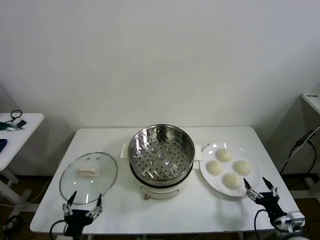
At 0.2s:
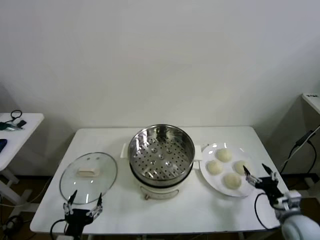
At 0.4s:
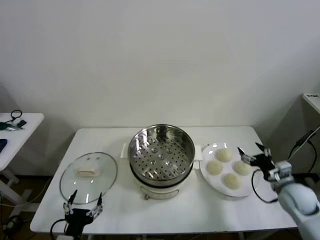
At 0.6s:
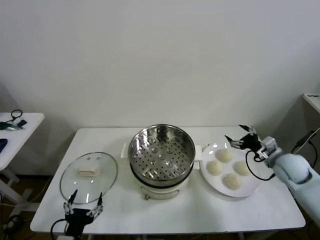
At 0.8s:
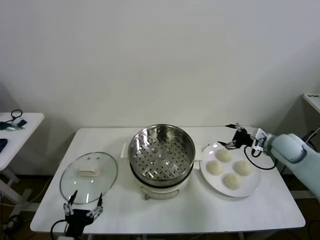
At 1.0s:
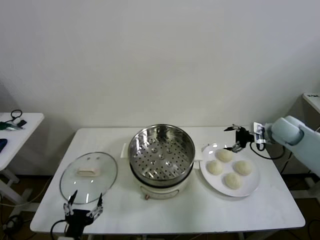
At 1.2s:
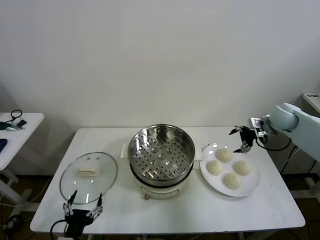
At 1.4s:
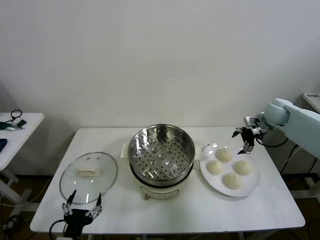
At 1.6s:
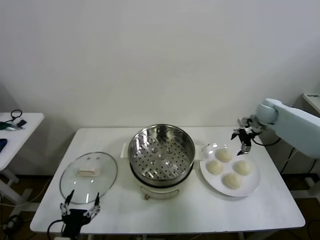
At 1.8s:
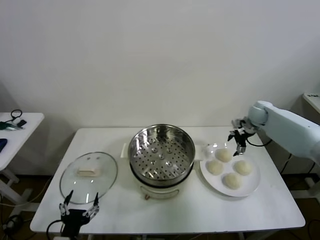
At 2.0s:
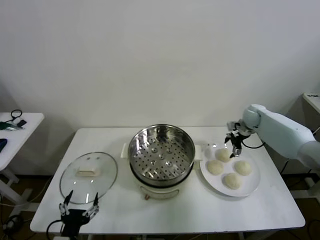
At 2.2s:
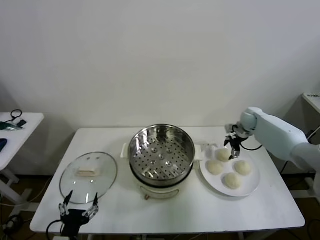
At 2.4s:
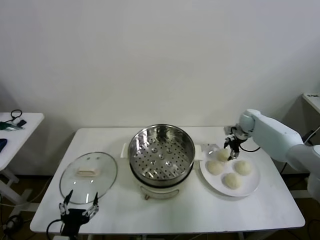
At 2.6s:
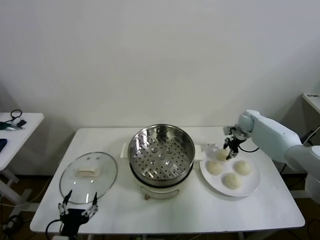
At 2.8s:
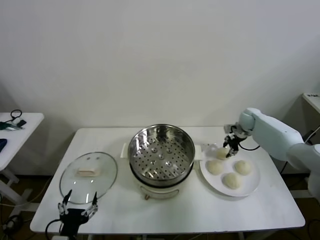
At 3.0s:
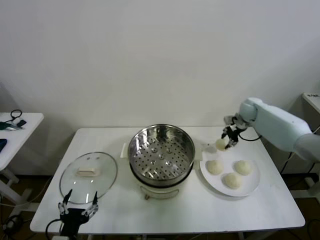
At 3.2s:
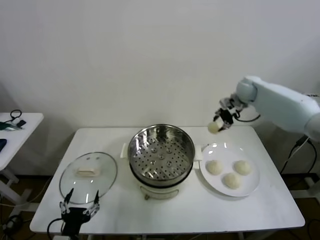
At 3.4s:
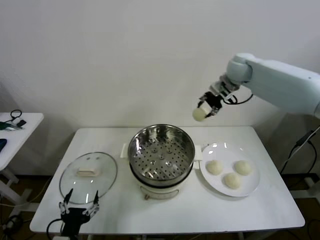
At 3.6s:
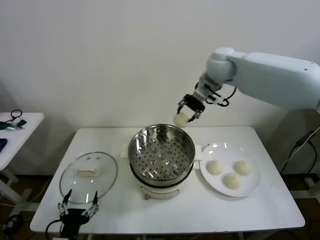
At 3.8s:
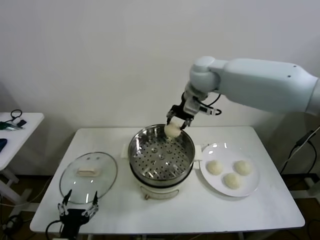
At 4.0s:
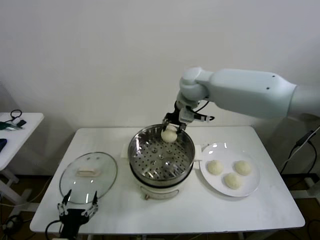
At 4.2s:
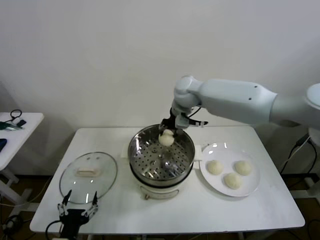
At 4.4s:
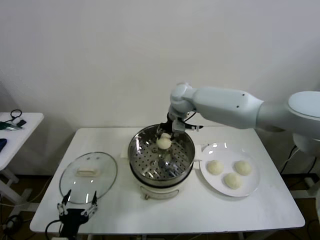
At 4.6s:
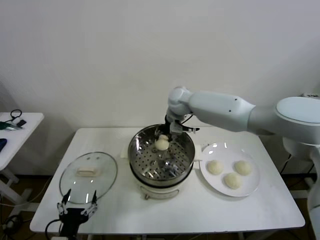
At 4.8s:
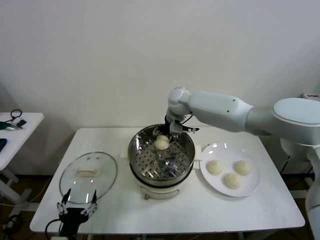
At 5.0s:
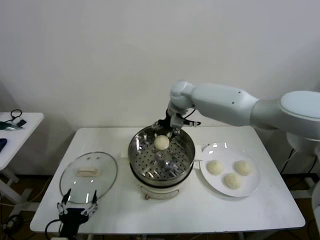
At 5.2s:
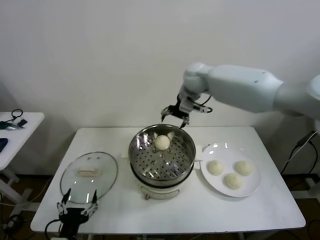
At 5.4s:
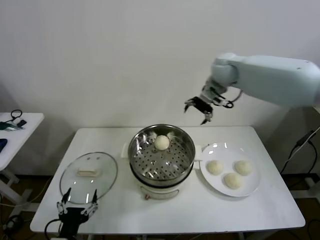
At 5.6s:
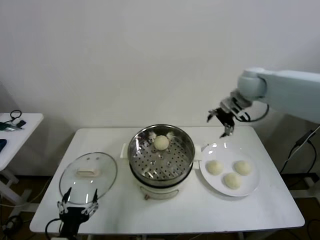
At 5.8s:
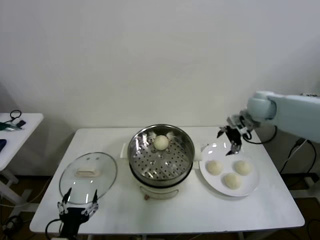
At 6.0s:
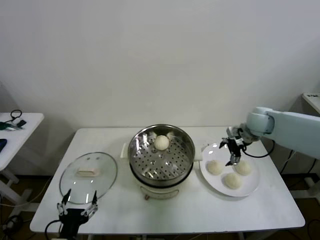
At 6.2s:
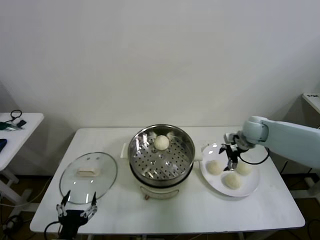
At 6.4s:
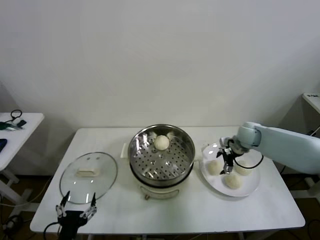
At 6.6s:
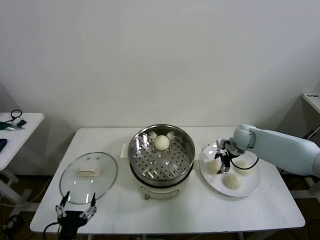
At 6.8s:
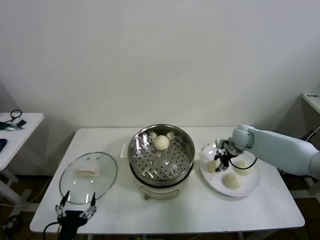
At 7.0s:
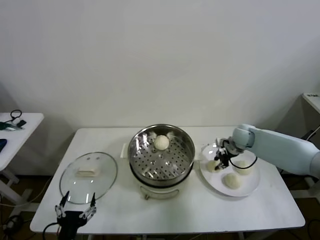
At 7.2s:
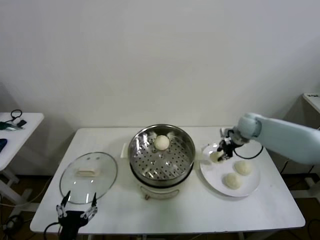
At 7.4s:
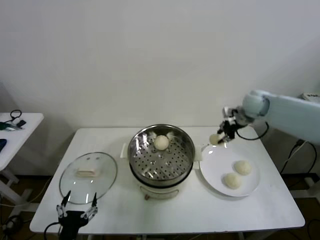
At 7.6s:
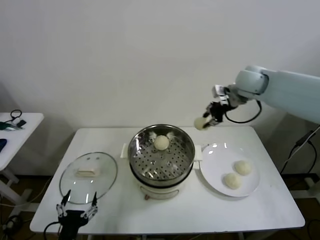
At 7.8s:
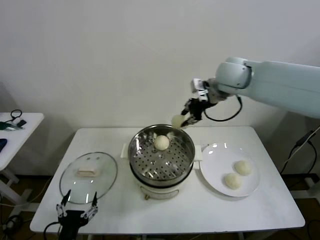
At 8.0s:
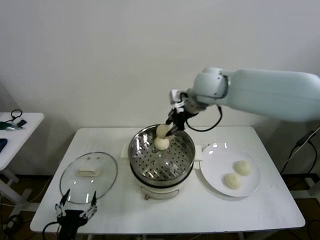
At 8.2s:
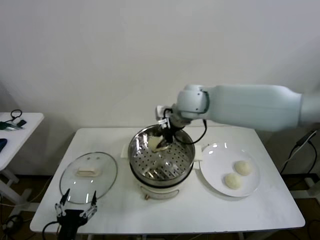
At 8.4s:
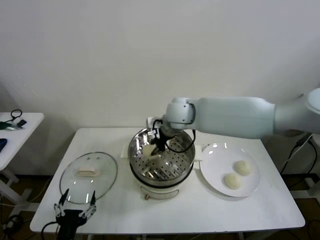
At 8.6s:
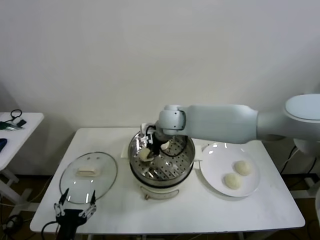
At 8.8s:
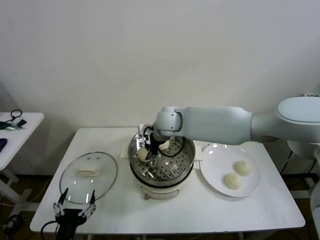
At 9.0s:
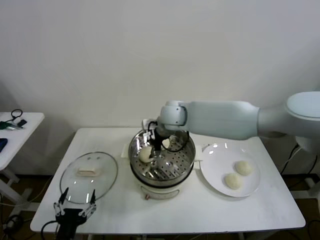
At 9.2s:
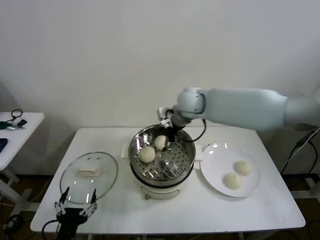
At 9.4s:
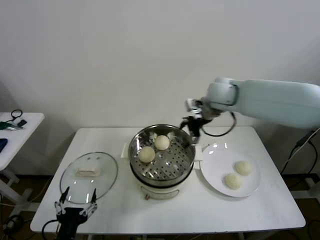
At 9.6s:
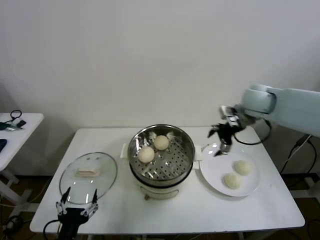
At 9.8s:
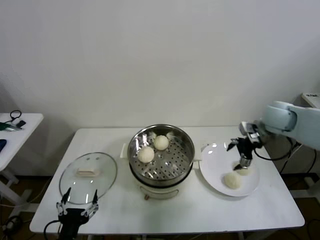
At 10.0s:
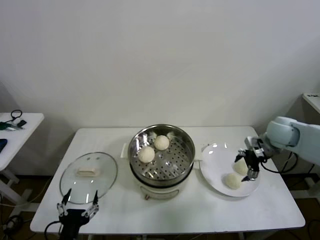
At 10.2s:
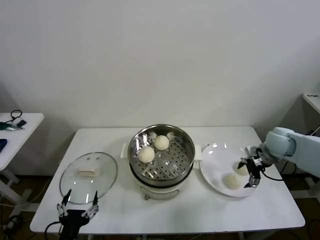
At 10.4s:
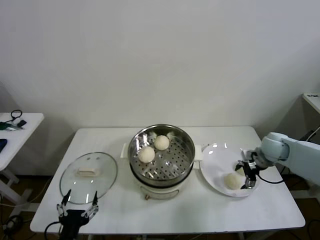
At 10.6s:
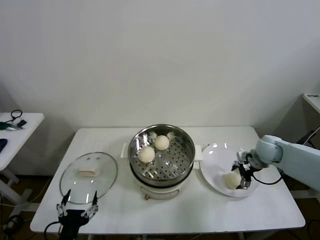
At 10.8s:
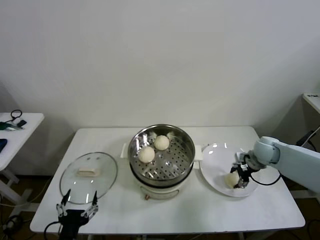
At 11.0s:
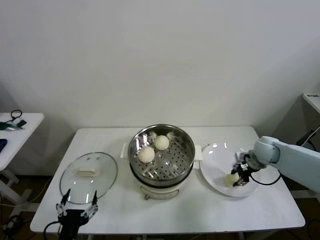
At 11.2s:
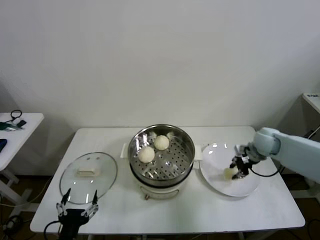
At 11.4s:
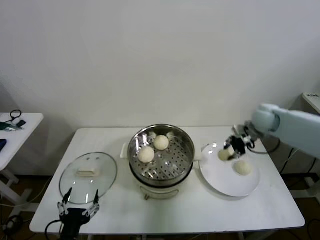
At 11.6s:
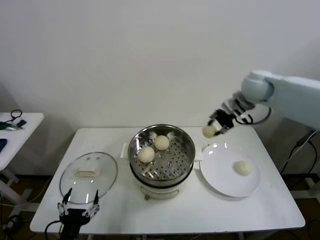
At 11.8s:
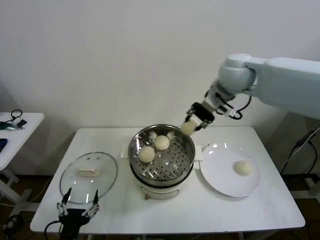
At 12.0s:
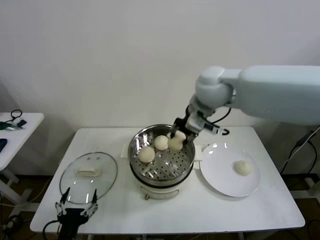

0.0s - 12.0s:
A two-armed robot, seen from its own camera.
Task of the whole recording: take steamed baozi put them in steamer then cover it.
Step, 0.0s - 2.8s: Grasp the baozi in the plate with right gripper.
Step, 3.0s - 5.0s: Place the baozi on the steamer with right gripper.
Step, 5.2s - 7.0s: Grasp the baozi in the plate with right gripper.
Step, 7.2s - 9.0s: Place the baozi on the steamer with right gripper.
Step, 9.2s - 11.0s: Grasp the baozi in the plate with right gripper.
1.6s - 3.0s: The right gripper moves to the left, about 5 cm, and closes up.
3.0s - 4.4s: The right gripper goes about 30 cm to the left.
4.4s - 6.0s: The right gripper is displaced to the right by some 25 cm, and opens its fingers.
6.0s - 7.6s: The right gripper moves upward and to the left, roughly 20 cm, and closes up.
7.6s - 9.0s: The right gripper shifts approximately 20 cm to the left and downward, and opens up.
9.0s - 10.4s: The right gripper is displaced to the right by approximately 35 cm.
10.4s - 12.0s: The right gripper moves to the left and upward, some 35 cm, and closes its fingers.

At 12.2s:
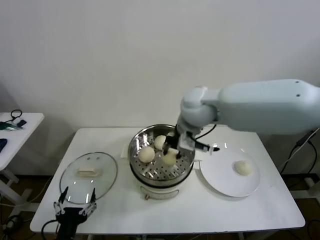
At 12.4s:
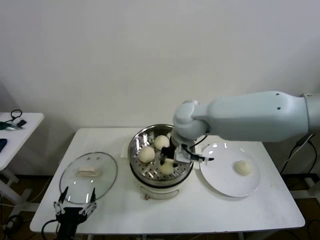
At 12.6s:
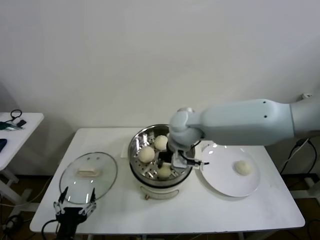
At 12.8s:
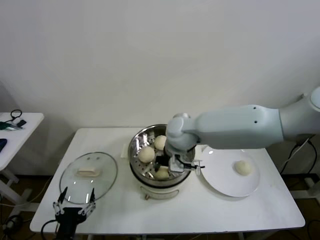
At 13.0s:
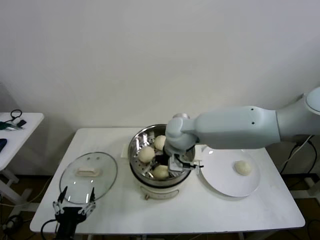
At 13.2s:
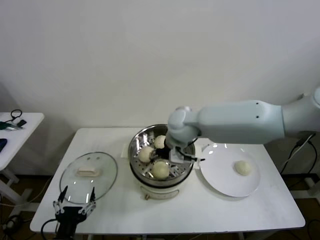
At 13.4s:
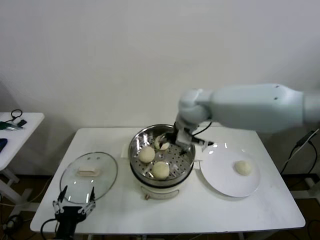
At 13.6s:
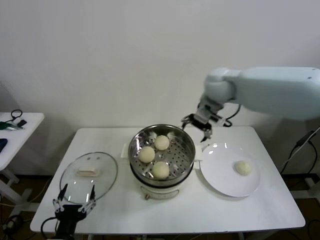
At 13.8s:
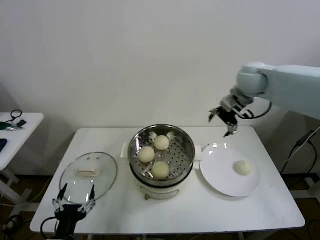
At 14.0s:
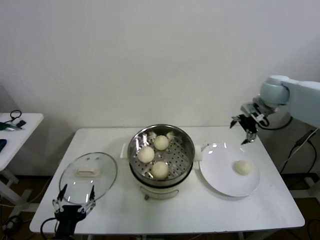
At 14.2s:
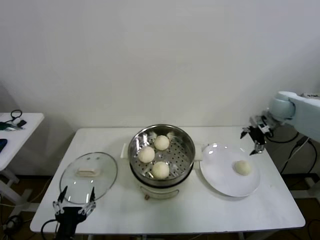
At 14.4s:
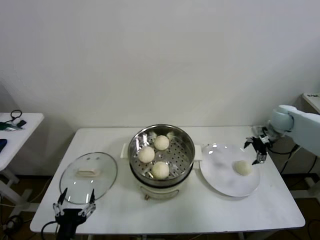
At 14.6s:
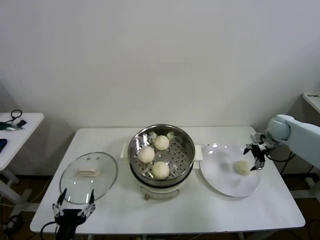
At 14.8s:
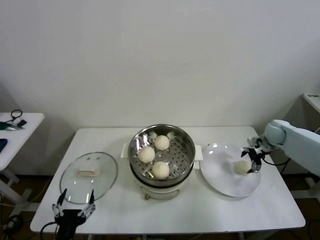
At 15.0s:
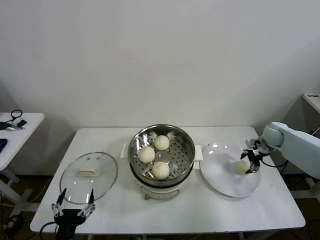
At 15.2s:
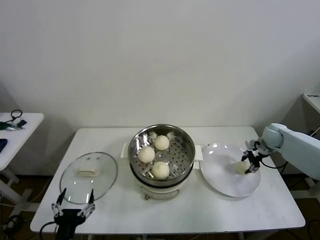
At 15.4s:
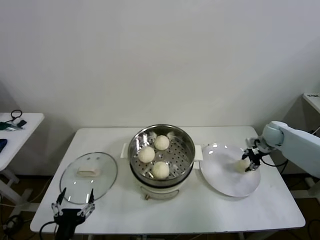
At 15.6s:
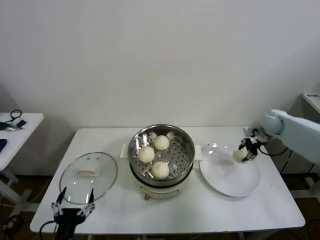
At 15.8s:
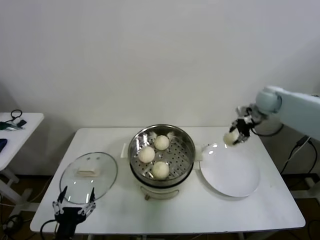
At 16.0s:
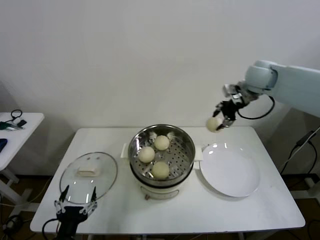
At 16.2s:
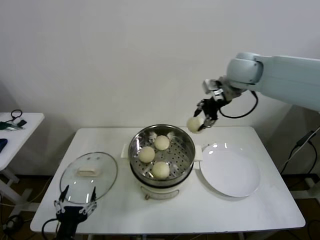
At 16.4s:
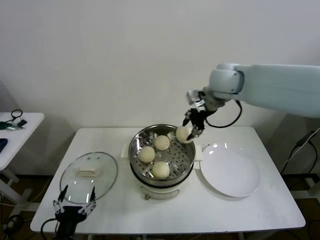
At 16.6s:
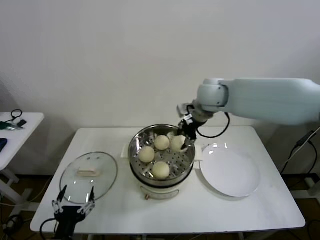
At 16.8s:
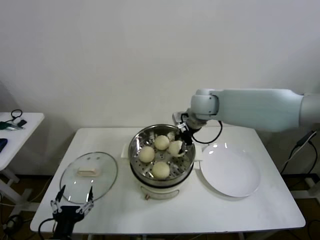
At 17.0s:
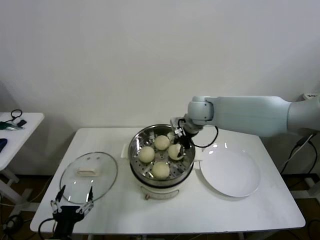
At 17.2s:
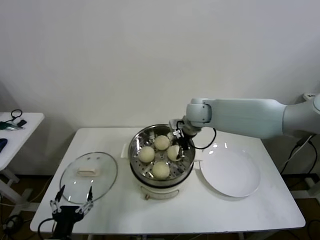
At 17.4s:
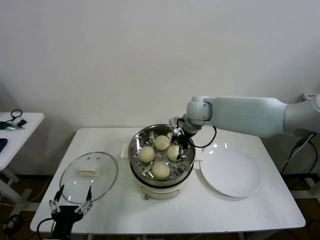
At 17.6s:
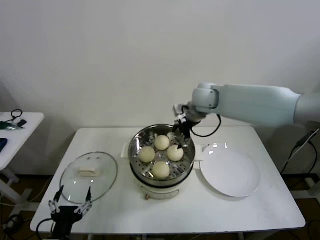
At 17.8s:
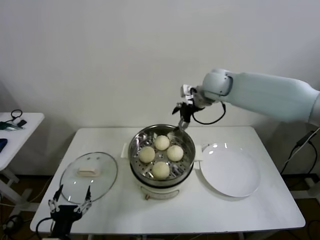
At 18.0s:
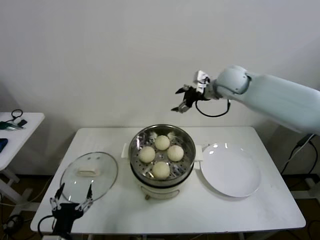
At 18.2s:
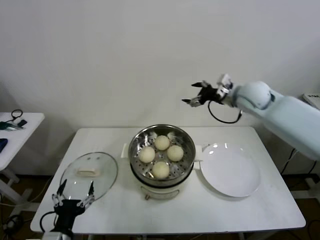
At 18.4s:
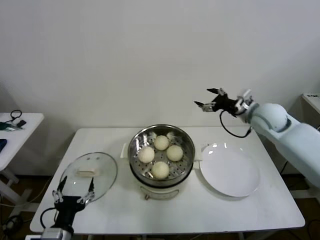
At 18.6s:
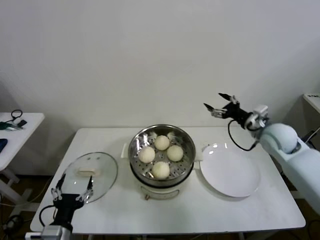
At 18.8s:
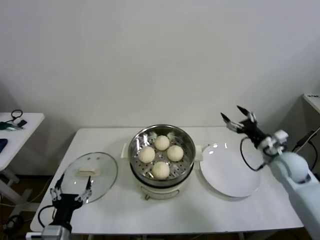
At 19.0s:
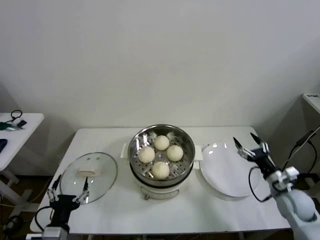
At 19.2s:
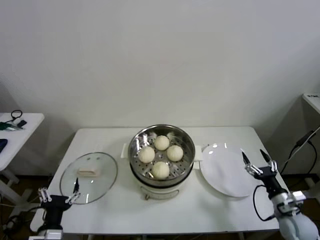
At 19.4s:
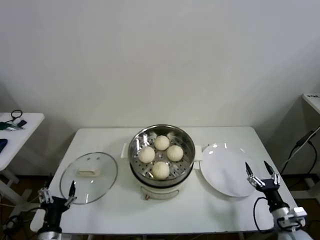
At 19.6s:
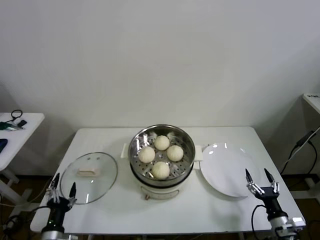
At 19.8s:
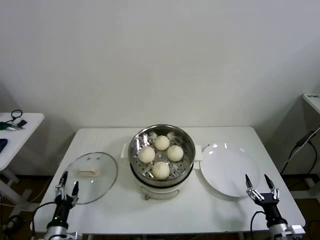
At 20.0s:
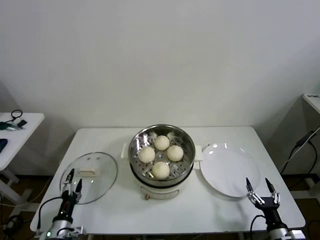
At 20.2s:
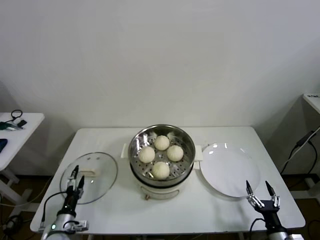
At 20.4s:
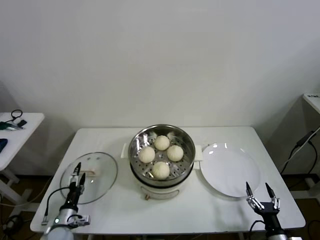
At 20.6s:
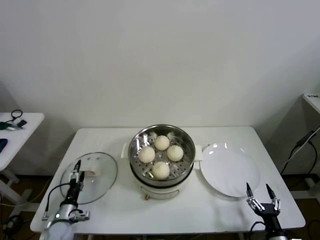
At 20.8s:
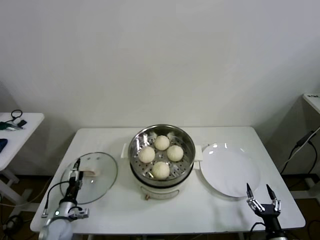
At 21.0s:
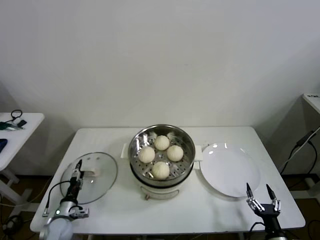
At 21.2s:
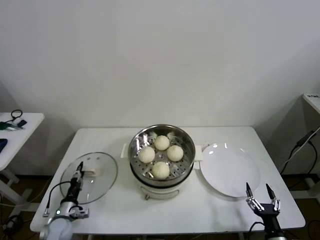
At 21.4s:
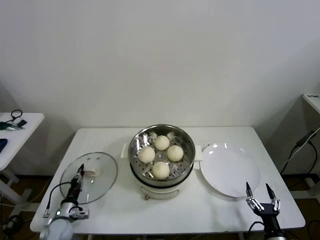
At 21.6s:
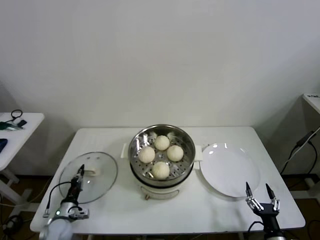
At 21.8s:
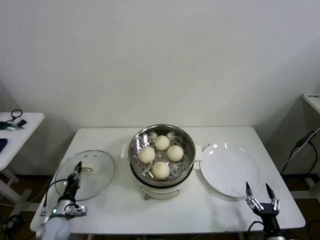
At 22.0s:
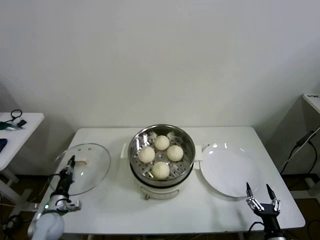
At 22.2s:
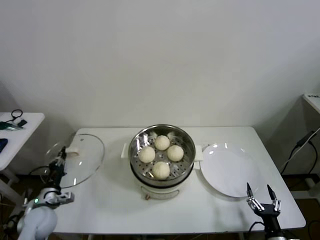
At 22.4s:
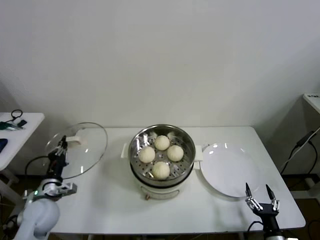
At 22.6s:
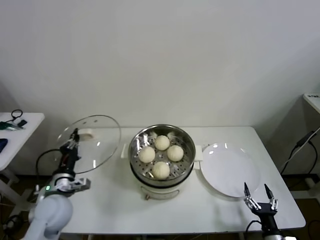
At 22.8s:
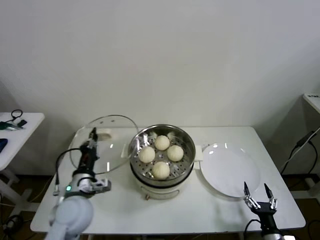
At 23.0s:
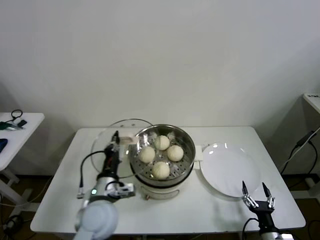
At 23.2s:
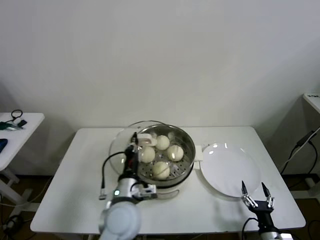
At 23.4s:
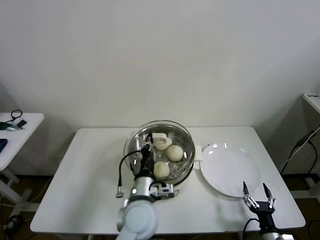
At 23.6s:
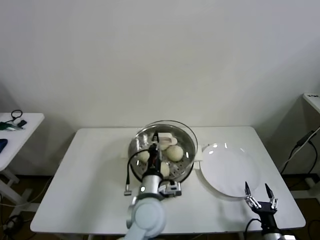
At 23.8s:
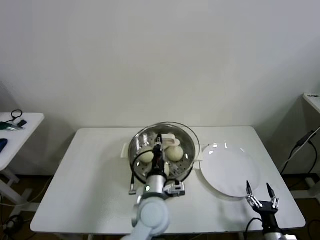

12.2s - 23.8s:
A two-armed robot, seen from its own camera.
Task of the whole recording: take steamed baozi put them in steamer then cover it.
Step, 13.2s - 15.4s: Grasp the baozi in the plate with right gripper.
Step, 15.6s - 17.4s: Place the baozi on the steamer with right gripper.
Step, 17.6s - 21.8s: Grasp the pot lid with left gripper.
12.2s - 13.6s: The right gripper goes some 15 cm to the right and forward, and opens up.
13.6s - 15.0s: The right gripper shifts some 35 cm to the right and downward.
15.0s - 16.6s: The right gripper travels to the left and upward by some 35 cm.
16.6s - 18.0s: The right gripper is displaced to the right by roughly 5 cm, goes downward and returns, about 10 cm each way, and opens up.
18.0s - 19.4s: The right gripper heads downward, backward and to the right, covering approximately 50 cm, while the left gripper travels downward and to the left by some 10 cm.
19.4s - 21.0s: The right gripper goes approximately 10 cm backward. The left gripper travels forward, downward and to the left by about 20 cm.
21.0s - 22.4s: The left gripper is displaced upward by approximately 15 cm, and closes up.
22.4s - 23.8s: The left gripper moves to the right, approximately 35 cm.
